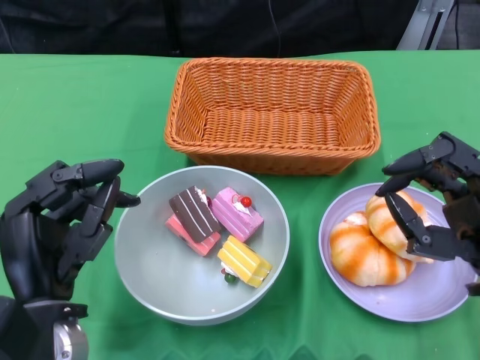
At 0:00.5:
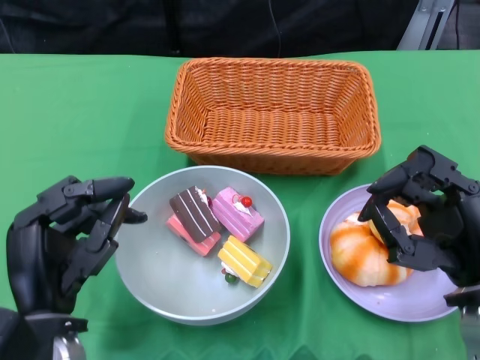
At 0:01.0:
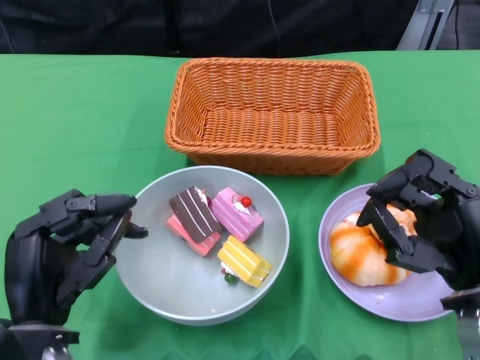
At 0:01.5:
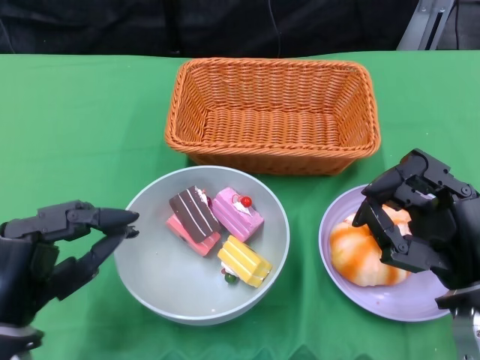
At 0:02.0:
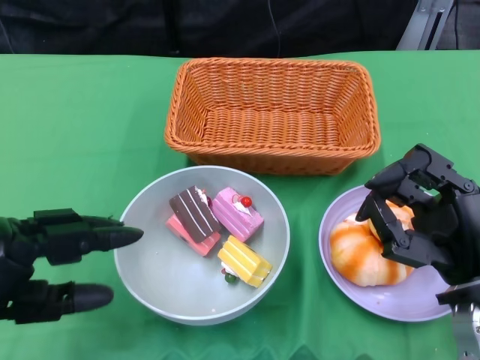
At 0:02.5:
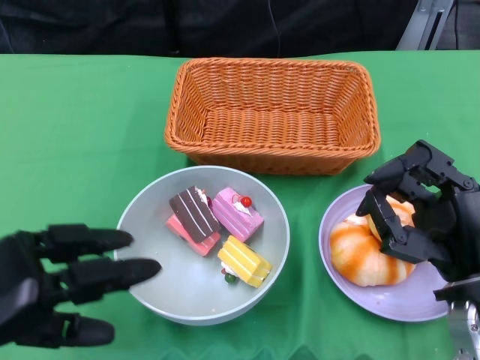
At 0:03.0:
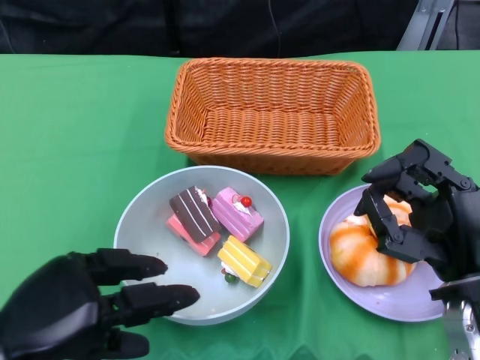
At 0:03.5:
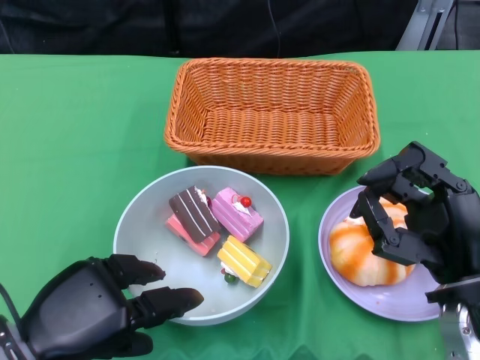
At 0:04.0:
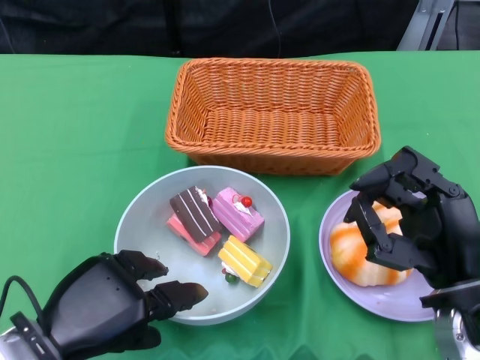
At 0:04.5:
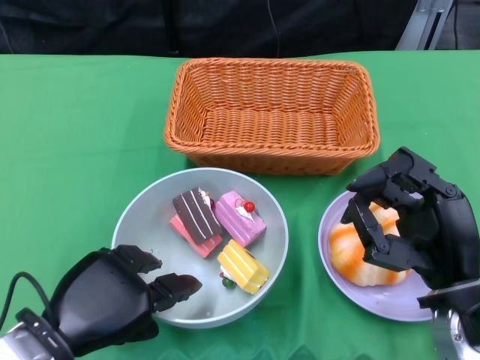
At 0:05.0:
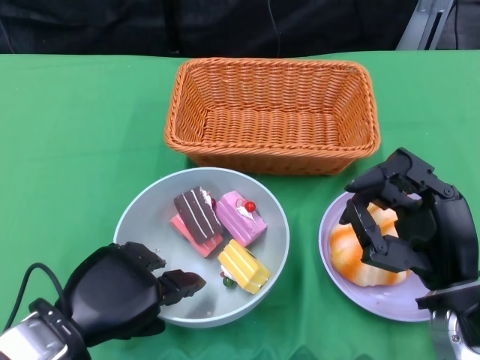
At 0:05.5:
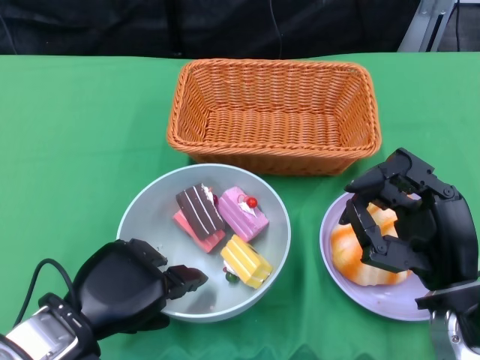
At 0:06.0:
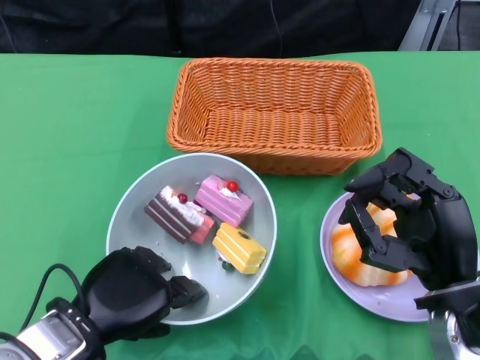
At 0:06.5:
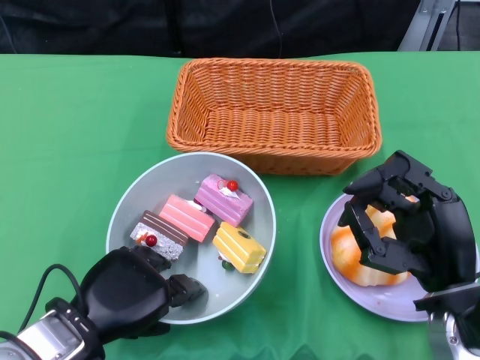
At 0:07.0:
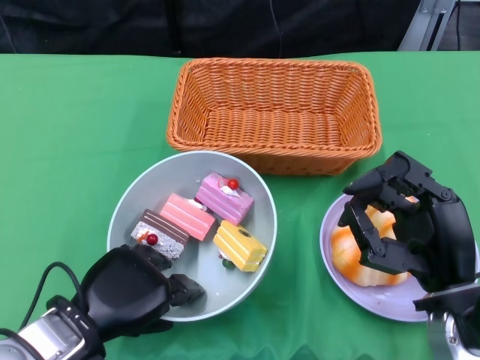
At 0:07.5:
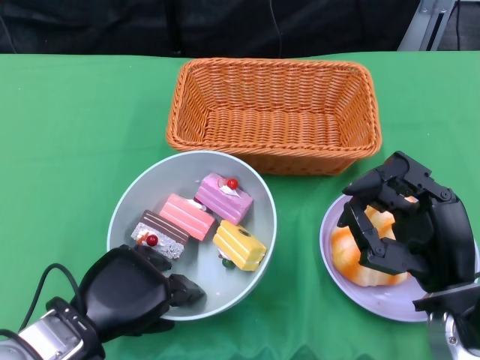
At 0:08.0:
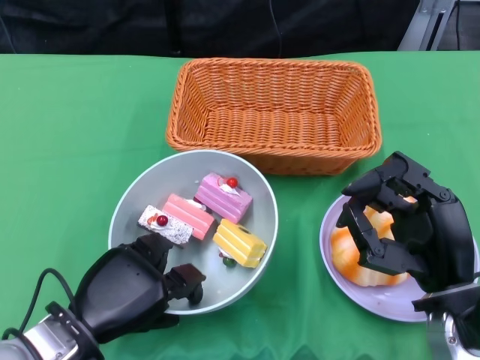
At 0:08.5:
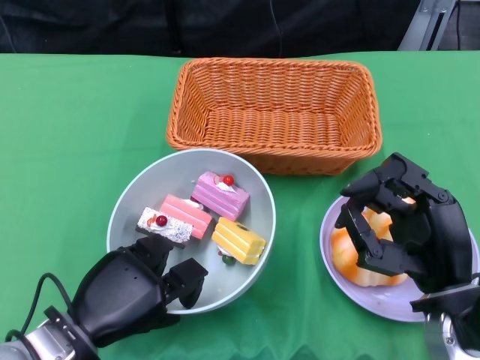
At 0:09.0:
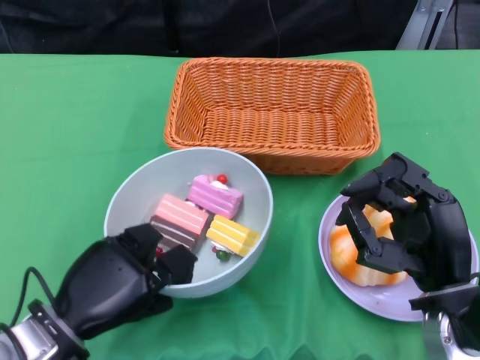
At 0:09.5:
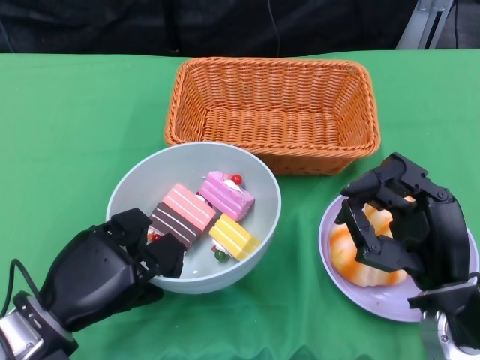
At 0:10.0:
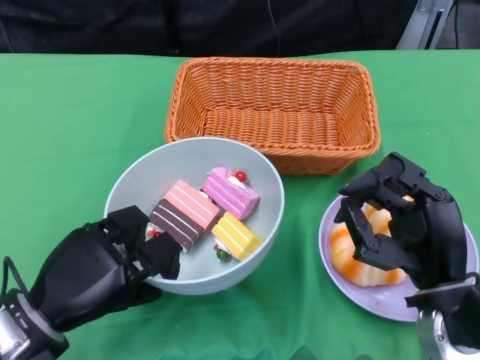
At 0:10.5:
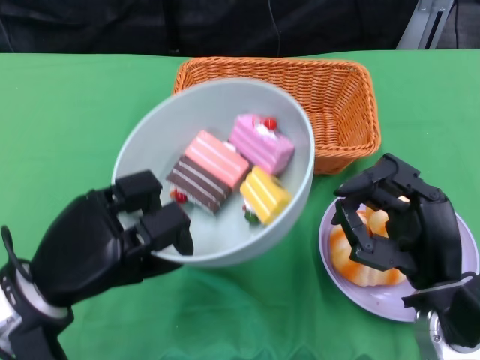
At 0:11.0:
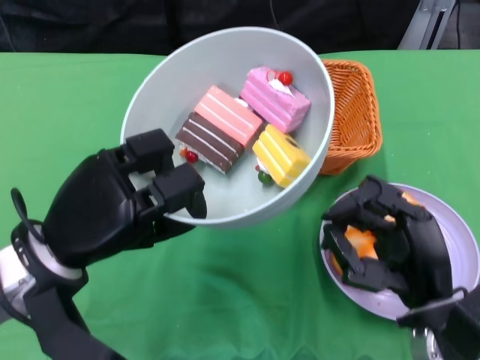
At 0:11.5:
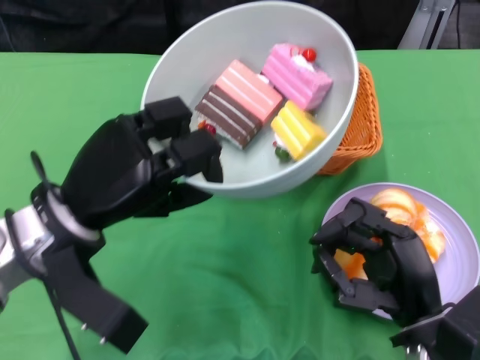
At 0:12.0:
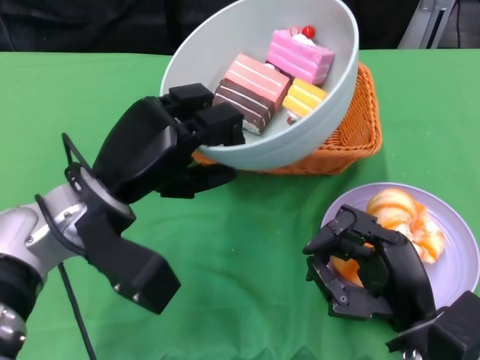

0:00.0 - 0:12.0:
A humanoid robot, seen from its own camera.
Step, 0:00.0 - 0:05.0: Grasp the bowl with the left gripper.
0:00.0 - 0:02.0: The left hand shifts some 10 cm to the left.
0:02.0 - 0:04.0: The left hand heads to the right, covering about 5 cm.
0:04.0 - 0:08.0: The hands make only small movements.
0:10.0 - 0:12.0: The left hand is displaced upward, forward and to the right by roughly 15 cm.

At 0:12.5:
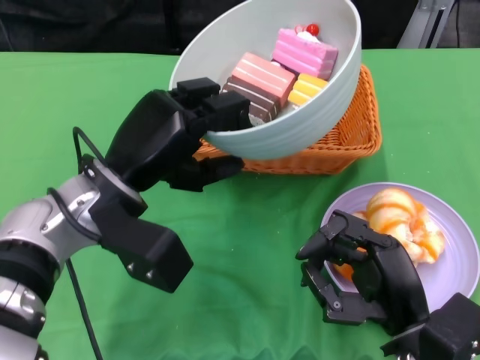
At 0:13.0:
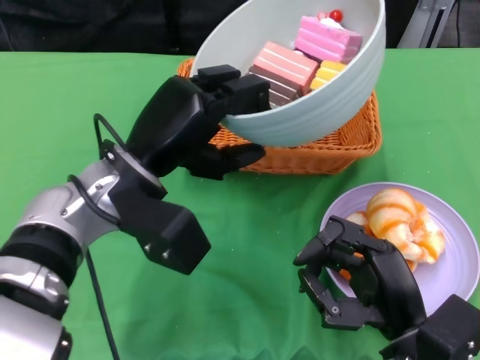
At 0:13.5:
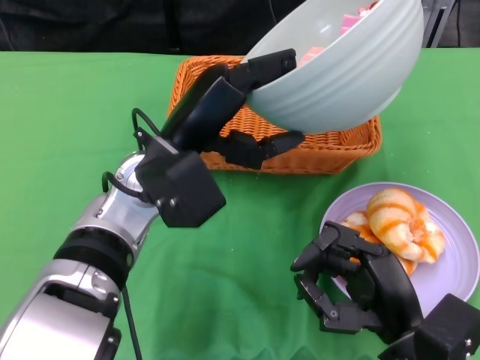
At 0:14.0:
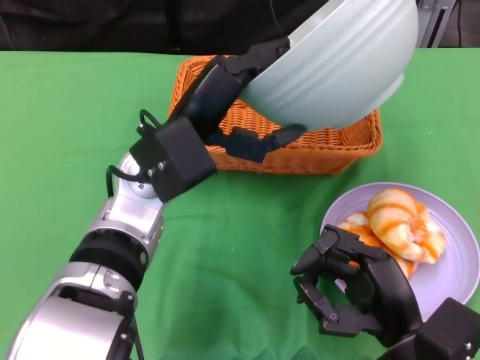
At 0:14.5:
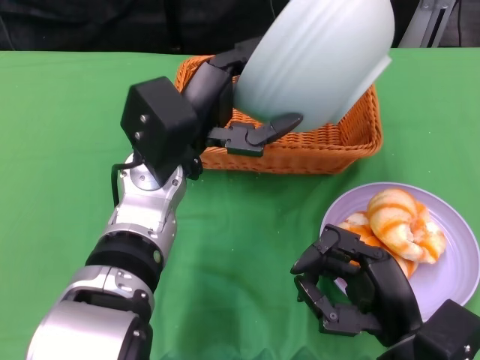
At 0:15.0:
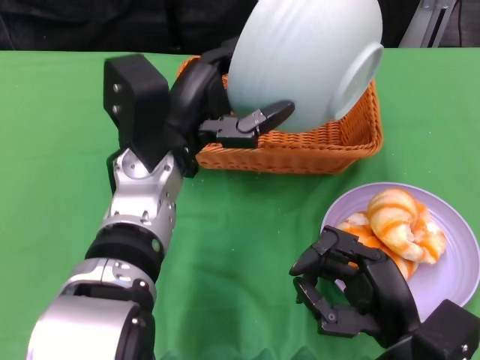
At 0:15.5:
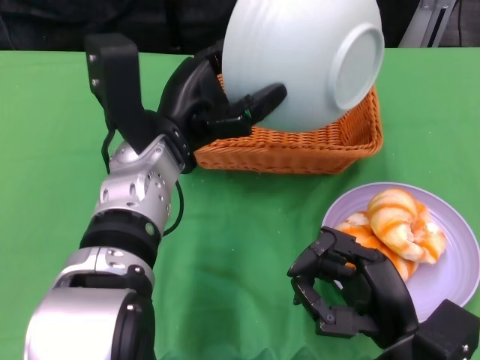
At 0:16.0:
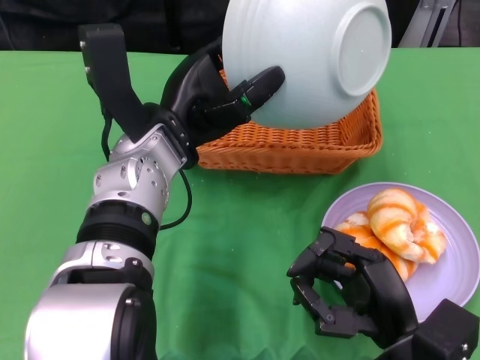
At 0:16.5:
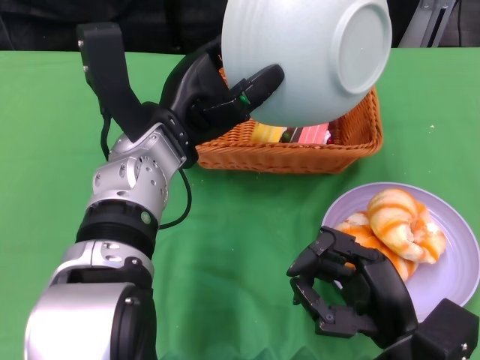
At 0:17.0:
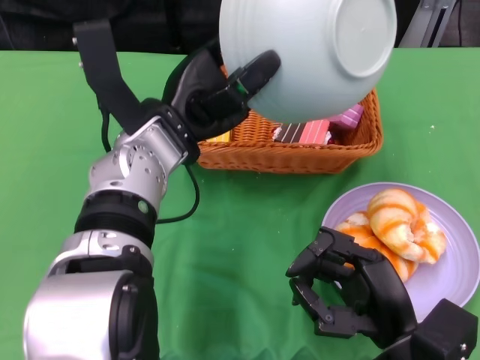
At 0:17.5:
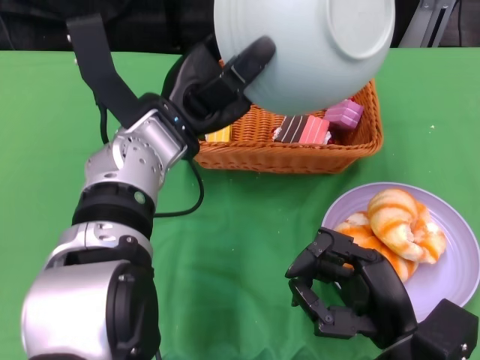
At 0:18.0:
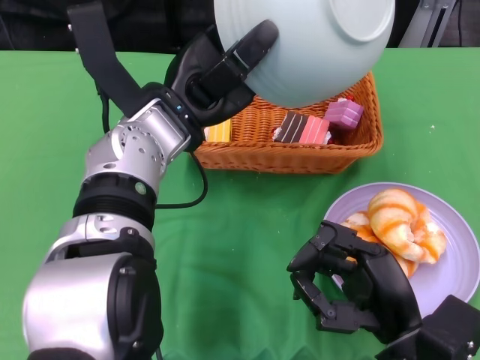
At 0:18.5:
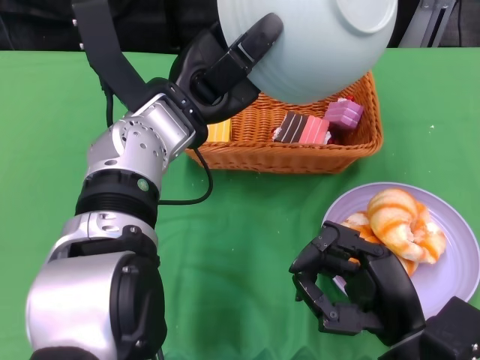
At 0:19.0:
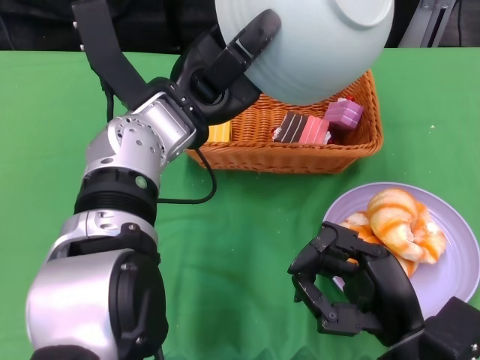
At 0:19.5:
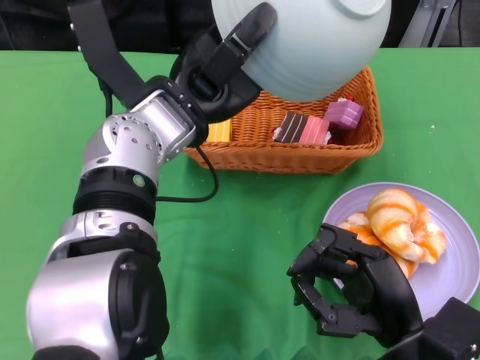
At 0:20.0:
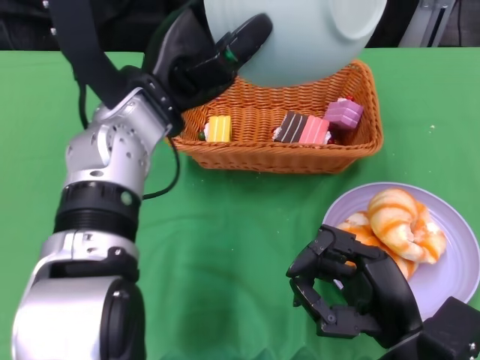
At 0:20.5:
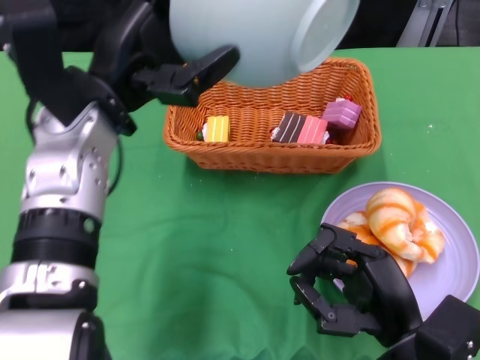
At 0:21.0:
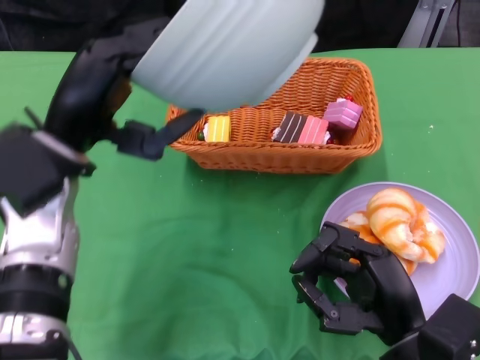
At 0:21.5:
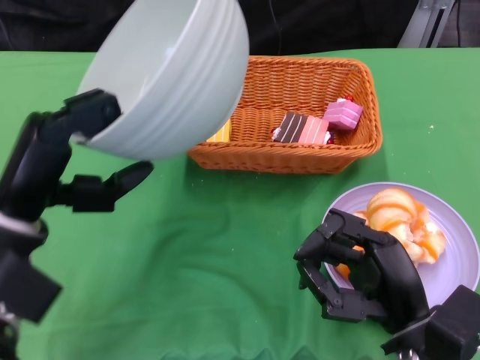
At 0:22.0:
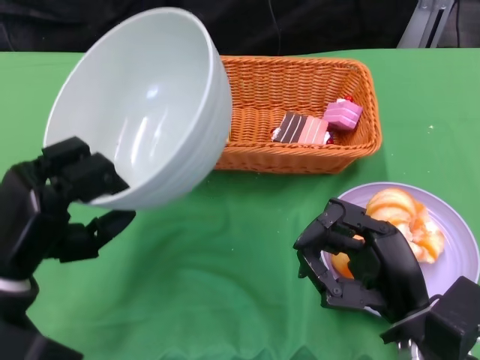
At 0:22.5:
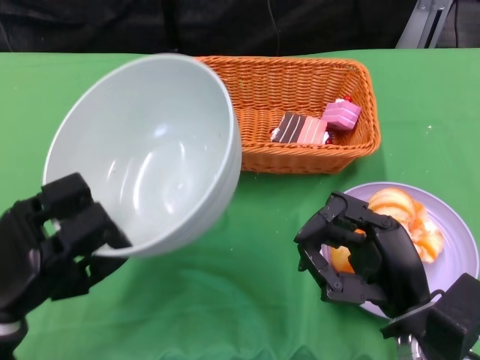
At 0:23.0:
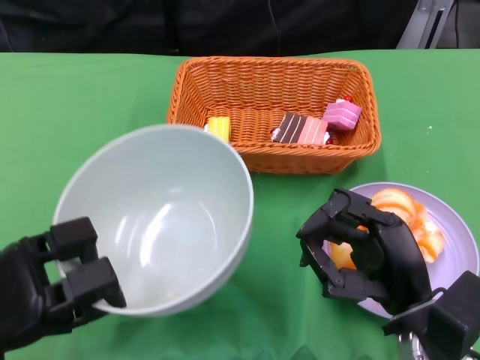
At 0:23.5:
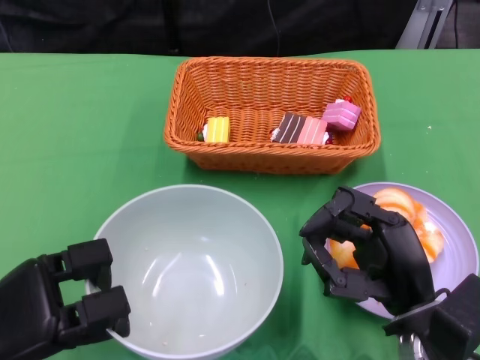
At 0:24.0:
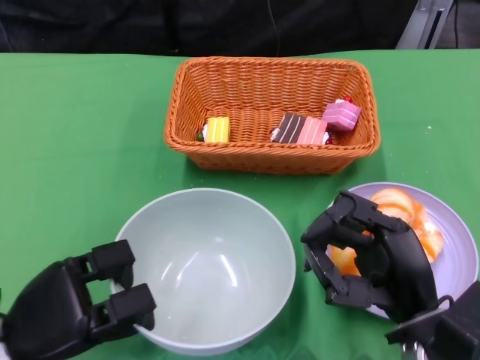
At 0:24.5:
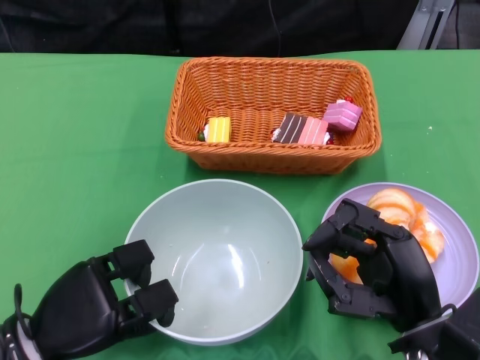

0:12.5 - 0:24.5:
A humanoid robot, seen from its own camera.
Step, 0:12.5 - 0:17.0: Pour the cake into the basket with the left gripper.
0:12.5 - 0:14.5: The left hand goes roughly 5 cm to the right.
0:18.5 - 0:20.5: The left hand goes approximately 5 cm to the left.
0:20.5 - 0:22.5: The left hand is displaced downward, backward and to the left by some 20 cm.
0:22.5 - 0:24.5: The left hand heads downward, covering approximately 5 cm.

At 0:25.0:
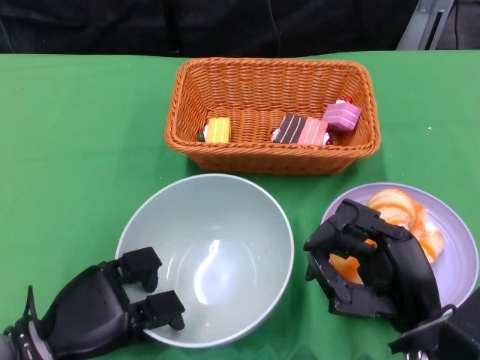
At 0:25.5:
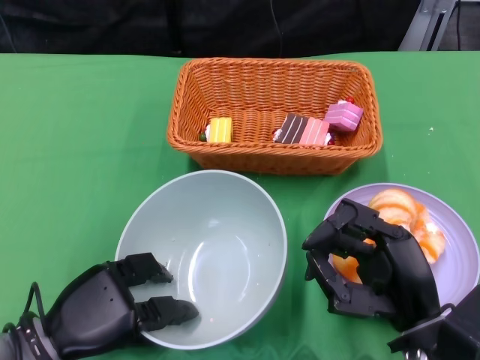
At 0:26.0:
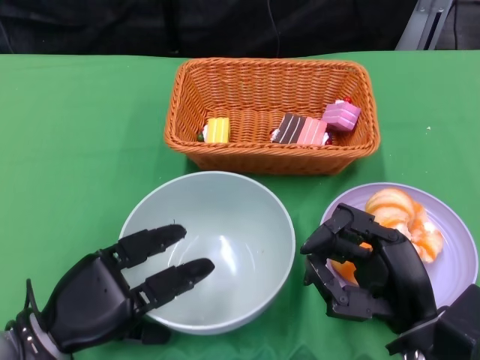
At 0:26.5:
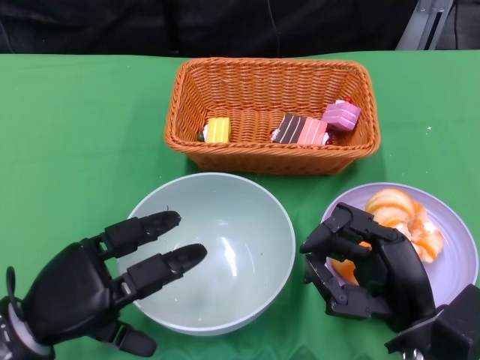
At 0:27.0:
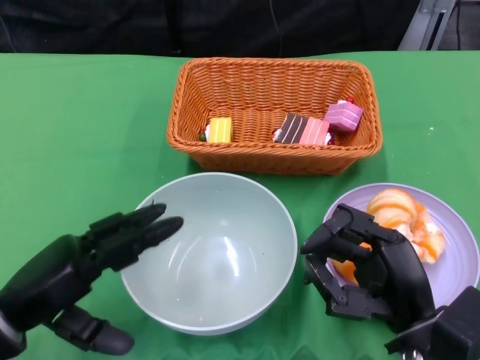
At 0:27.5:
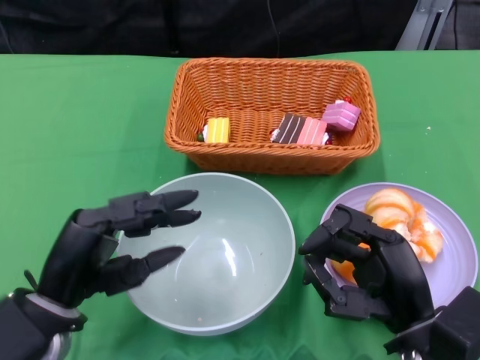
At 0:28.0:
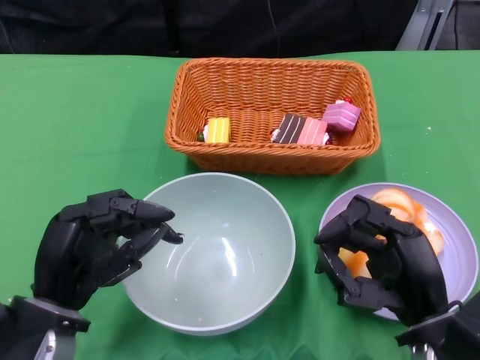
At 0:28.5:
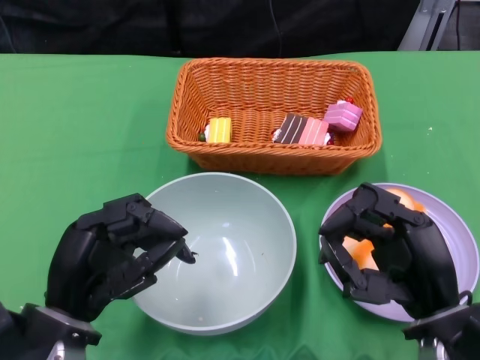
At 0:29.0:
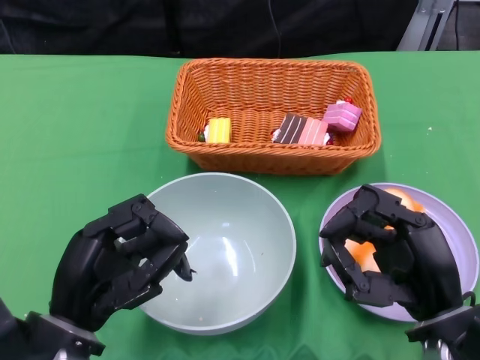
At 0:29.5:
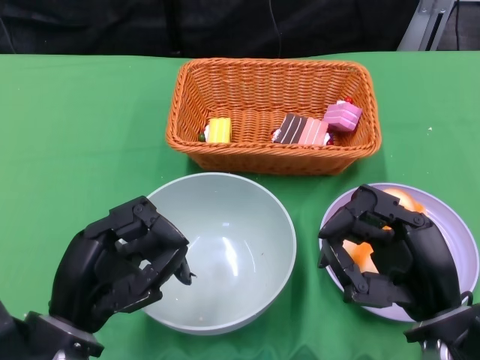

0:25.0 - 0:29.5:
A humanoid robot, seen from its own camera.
0:25.0 - 0:27.0: The left hand heads upward, covering roughly 5 cm.
0:27.0 - 0:29.5: The left hand shifts some 5 cm to the right.
